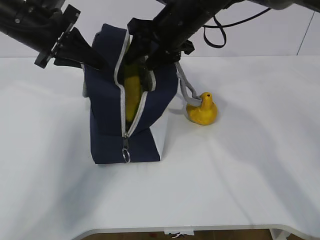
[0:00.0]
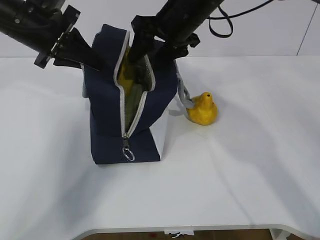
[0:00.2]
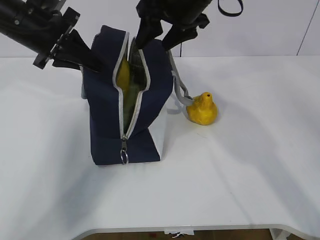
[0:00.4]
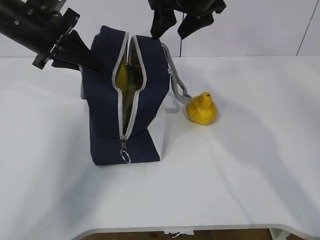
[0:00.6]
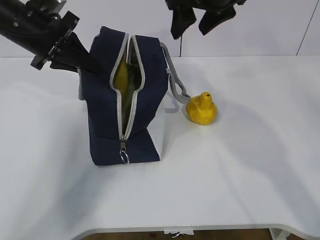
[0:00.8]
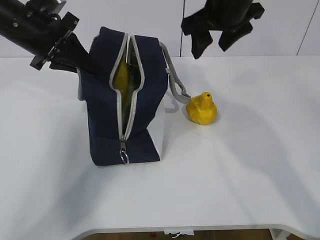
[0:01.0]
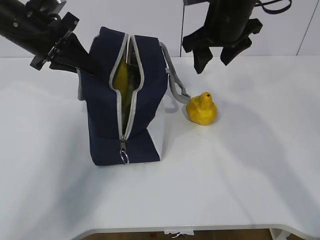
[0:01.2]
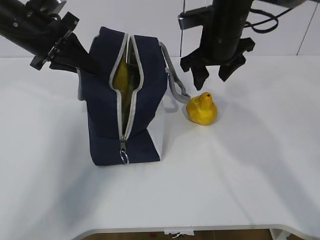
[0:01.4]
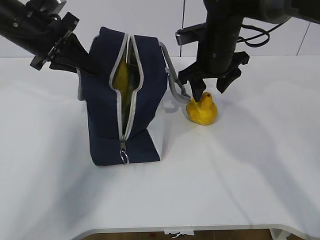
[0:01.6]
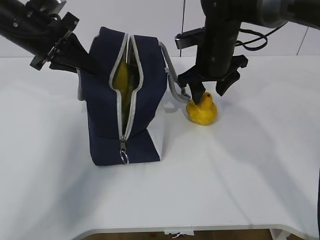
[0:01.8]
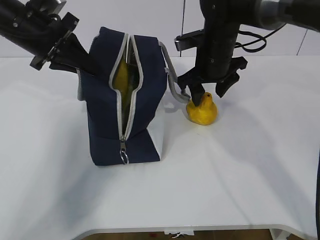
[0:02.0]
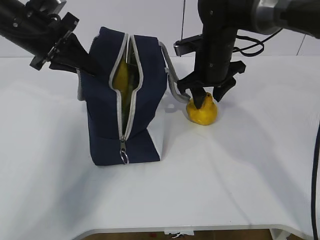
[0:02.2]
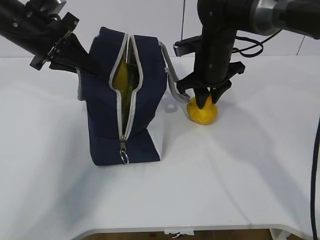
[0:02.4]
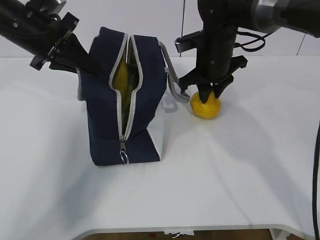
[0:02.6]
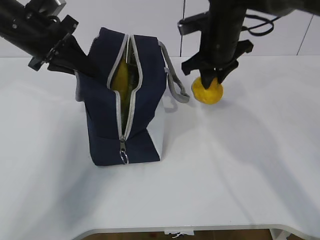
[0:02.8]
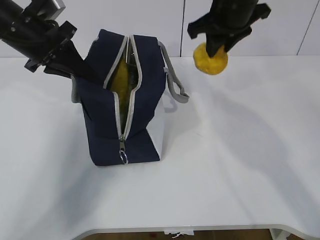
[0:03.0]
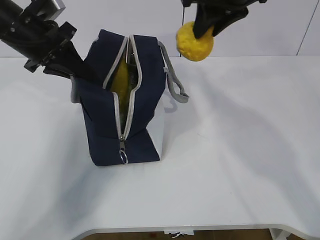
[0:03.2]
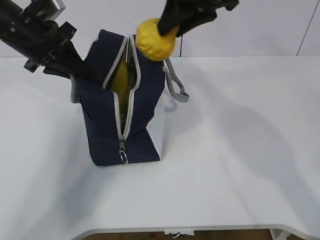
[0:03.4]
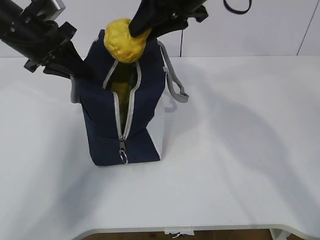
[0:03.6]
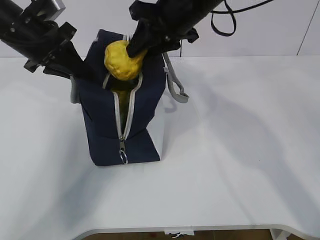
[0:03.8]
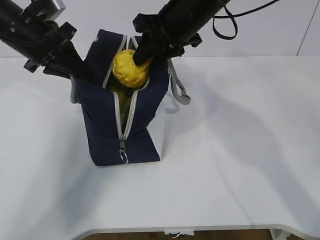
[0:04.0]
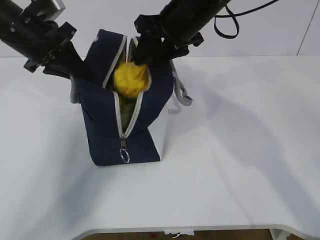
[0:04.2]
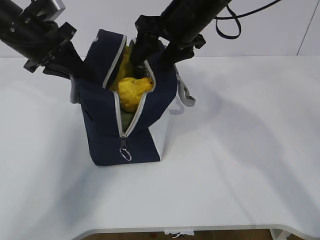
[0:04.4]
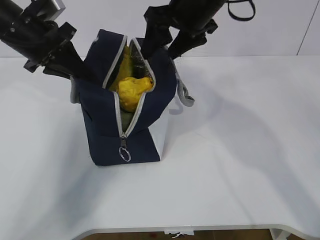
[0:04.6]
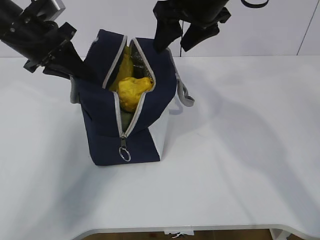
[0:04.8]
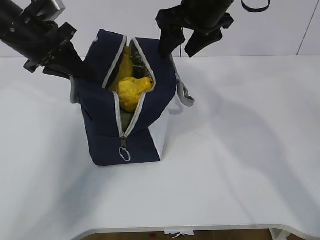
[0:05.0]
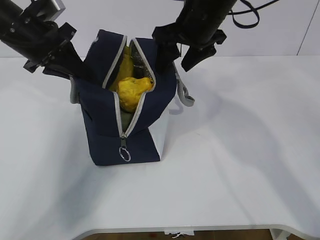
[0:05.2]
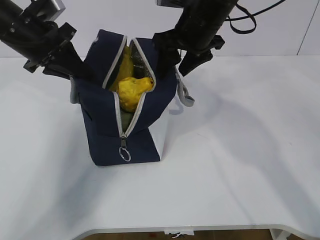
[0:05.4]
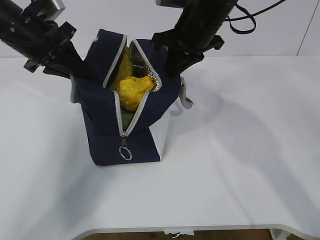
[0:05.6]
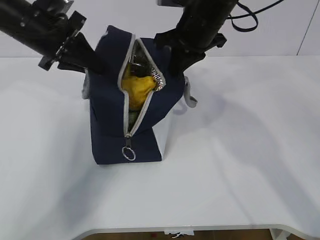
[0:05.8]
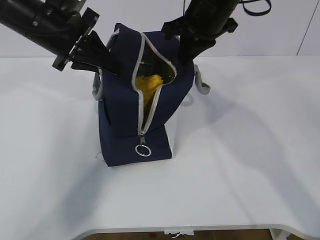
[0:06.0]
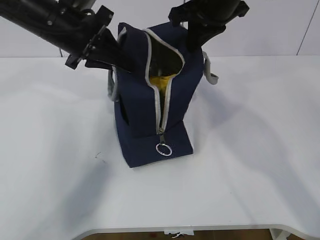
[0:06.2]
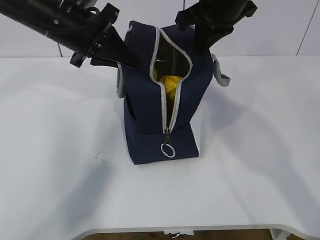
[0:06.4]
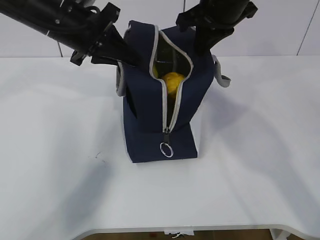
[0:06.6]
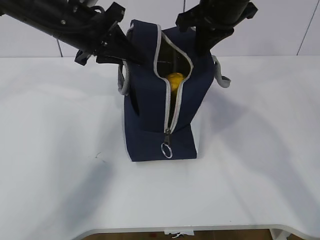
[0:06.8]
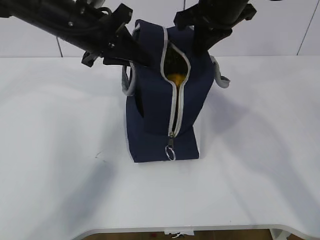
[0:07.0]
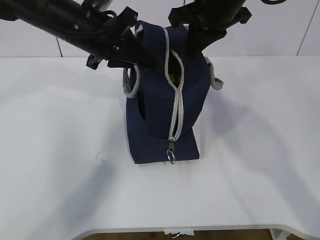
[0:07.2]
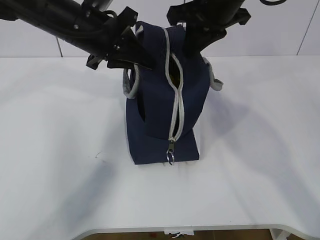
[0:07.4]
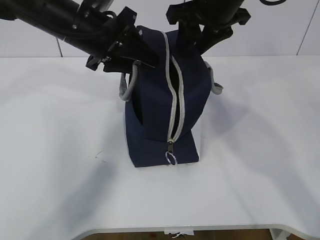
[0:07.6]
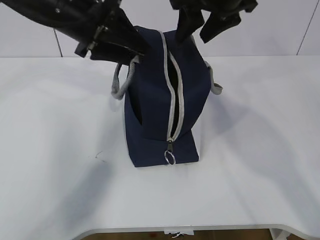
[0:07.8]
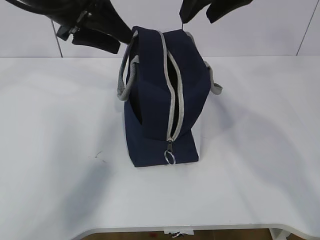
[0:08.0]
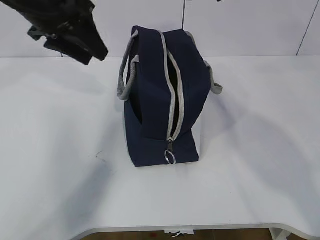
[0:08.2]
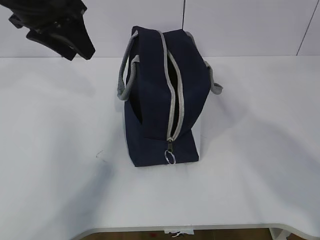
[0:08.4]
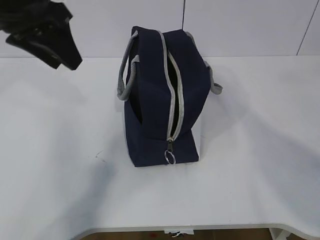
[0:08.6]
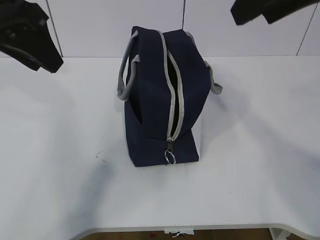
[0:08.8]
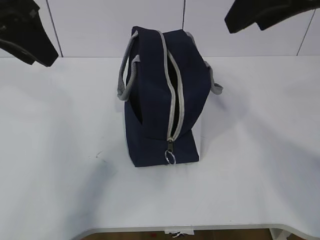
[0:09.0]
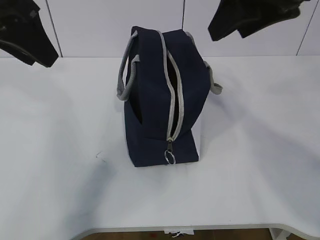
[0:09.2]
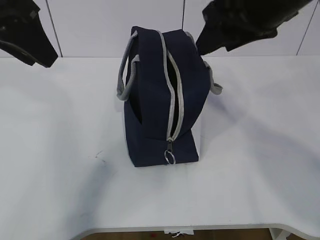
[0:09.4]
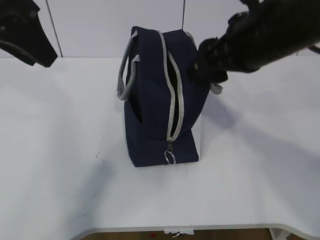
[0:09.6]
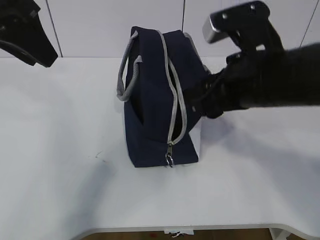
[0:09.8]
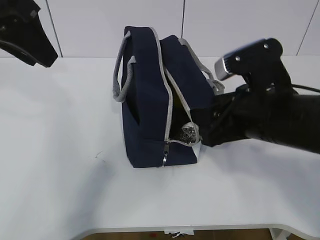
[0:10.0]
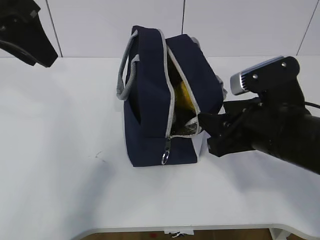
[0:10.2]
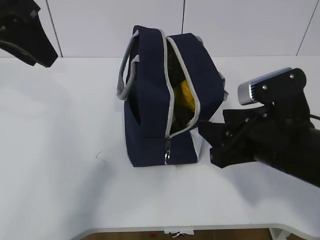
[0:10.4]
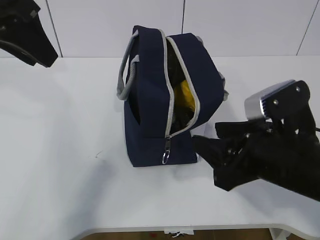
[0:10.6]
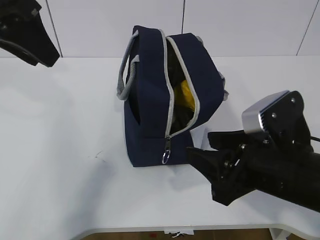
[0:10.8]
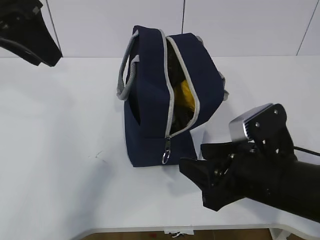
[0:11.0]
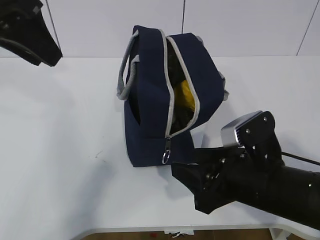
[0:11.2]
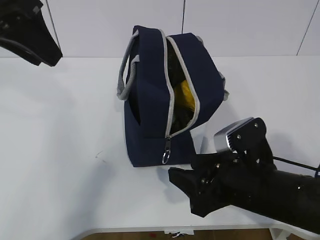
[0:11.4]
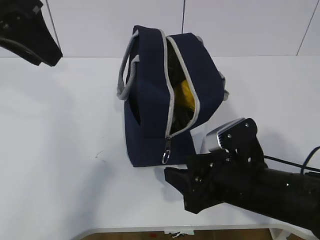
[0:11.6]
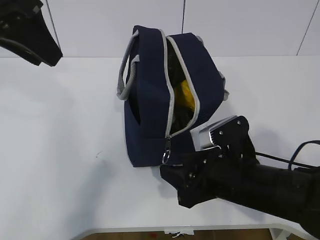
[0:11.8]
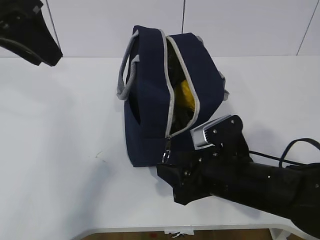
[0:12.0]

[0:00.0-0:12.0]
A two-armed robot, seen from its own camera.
Step, 0:00.4 to 0:02.2: Grasp the pear with the right gripper.
Step, 0:02.6 to 0:04.4: Place the pear into the package with the right gripper.
0:00.0 to 0:01.6: The right gripper shifts approximately 10 cm to the right and downward.
0:01.6 to 0:03.0: The right gripper moves upward, about 10 cm, and closes up.
0:03.0 to 0:04.4: The right gripper moves to the left, approximately 5 cm, and opens its fingers.
0:04.4 to 0:06.0: The right gripper closes up.
0:06.0 to 0:07.6: The right gripper opens up. The left gripper opens its fingers.
0:07.6 to 0:09.0: The left gripper moves upward, backward and to the left, about 15 cm, while the right gripper is displaced backward and upward by approximately 15 cm.
0:09.0 to 0:10.4: The right gripper is displaced downward by approximately 20 cm.
0:10.4 to 0:12.0: The right gripper is displaced downward by some 10 cm.

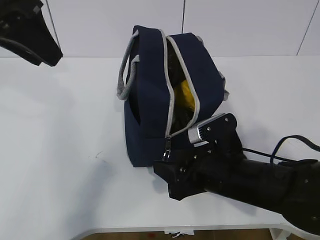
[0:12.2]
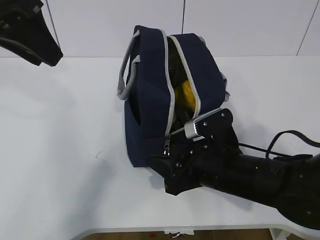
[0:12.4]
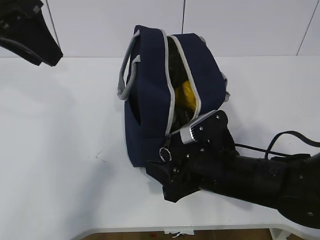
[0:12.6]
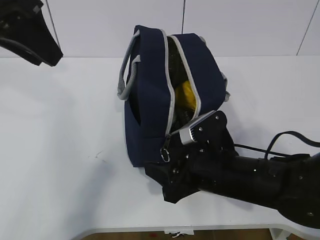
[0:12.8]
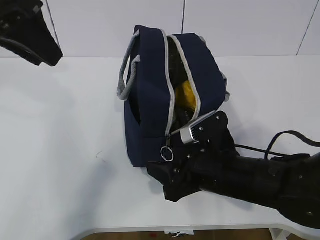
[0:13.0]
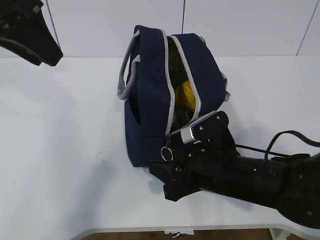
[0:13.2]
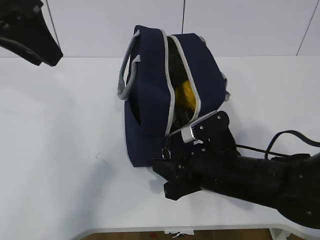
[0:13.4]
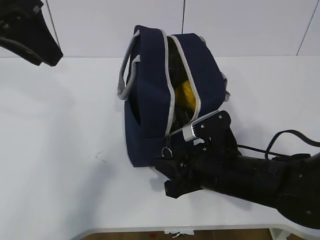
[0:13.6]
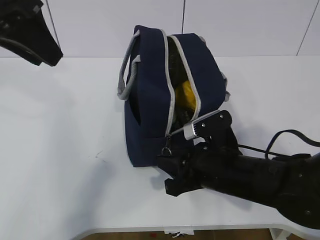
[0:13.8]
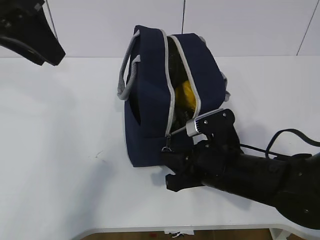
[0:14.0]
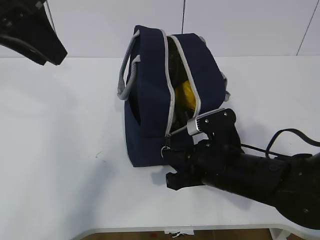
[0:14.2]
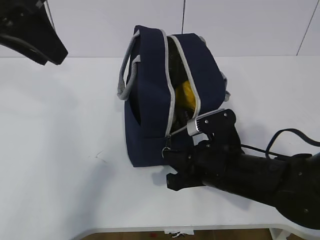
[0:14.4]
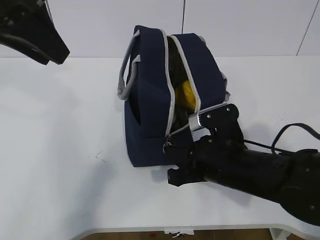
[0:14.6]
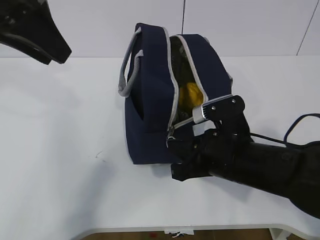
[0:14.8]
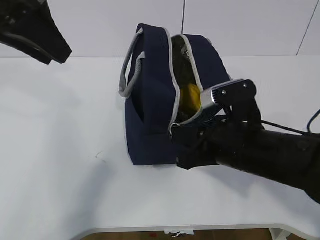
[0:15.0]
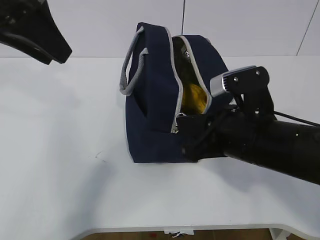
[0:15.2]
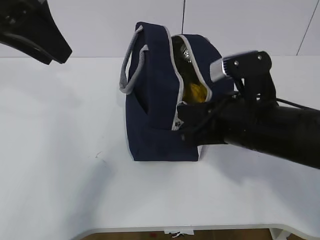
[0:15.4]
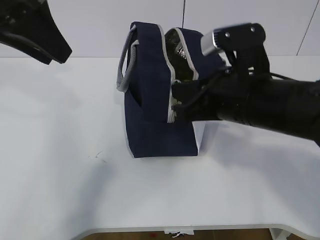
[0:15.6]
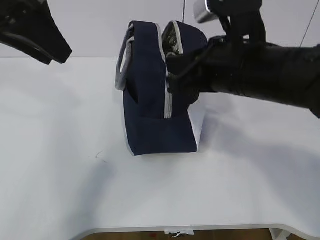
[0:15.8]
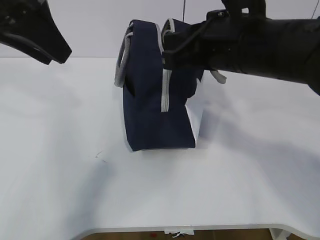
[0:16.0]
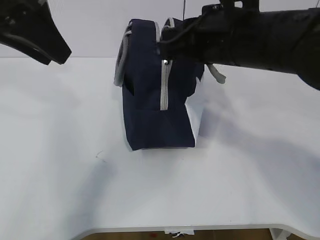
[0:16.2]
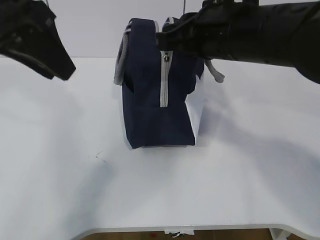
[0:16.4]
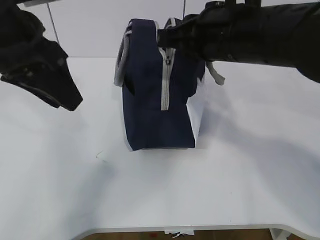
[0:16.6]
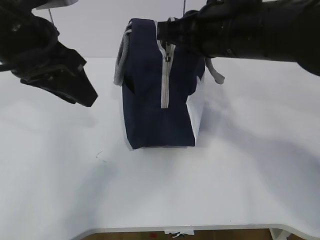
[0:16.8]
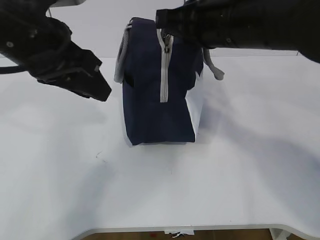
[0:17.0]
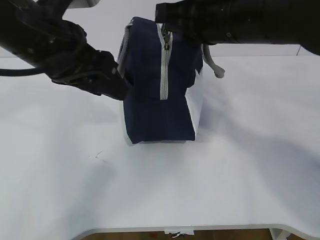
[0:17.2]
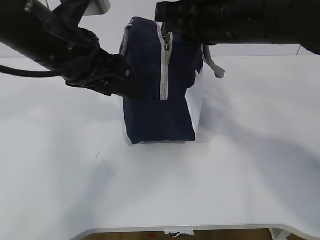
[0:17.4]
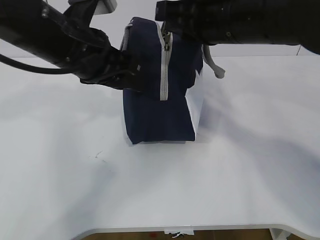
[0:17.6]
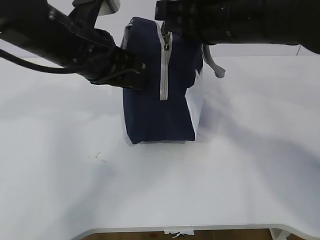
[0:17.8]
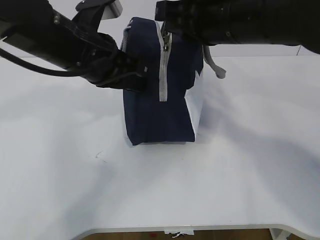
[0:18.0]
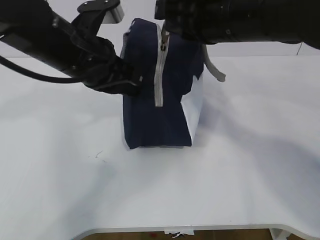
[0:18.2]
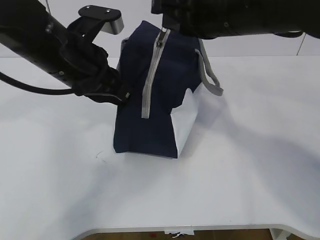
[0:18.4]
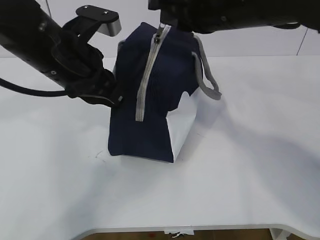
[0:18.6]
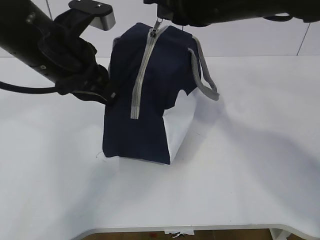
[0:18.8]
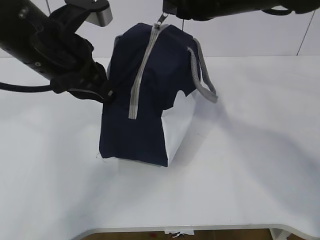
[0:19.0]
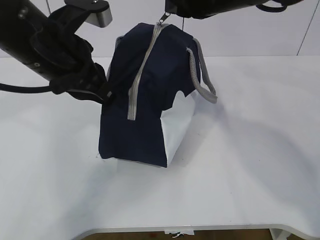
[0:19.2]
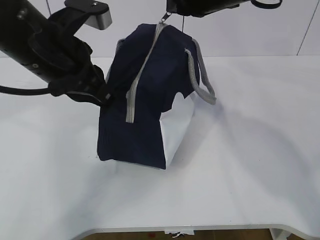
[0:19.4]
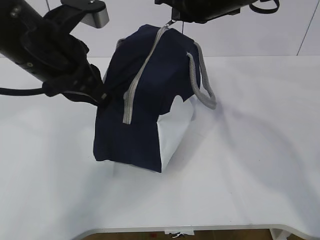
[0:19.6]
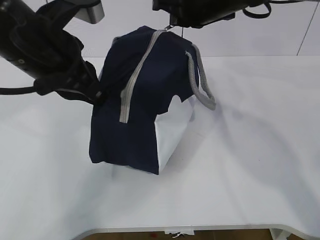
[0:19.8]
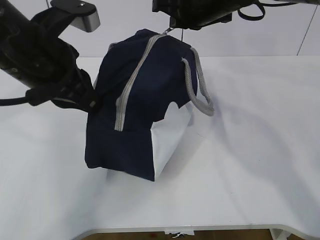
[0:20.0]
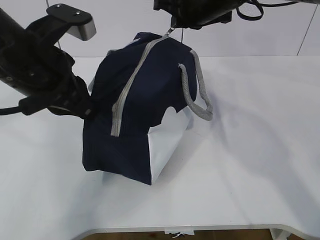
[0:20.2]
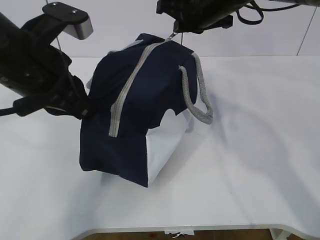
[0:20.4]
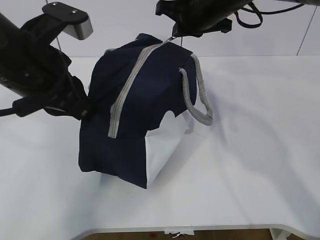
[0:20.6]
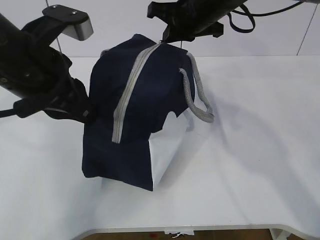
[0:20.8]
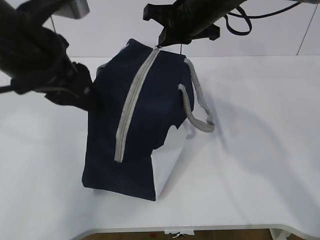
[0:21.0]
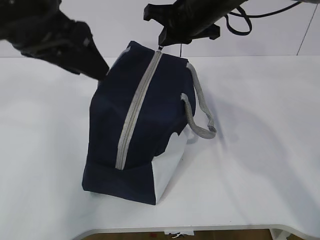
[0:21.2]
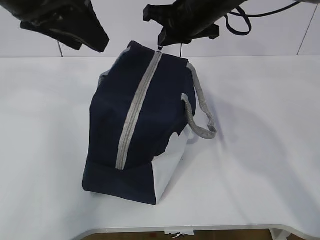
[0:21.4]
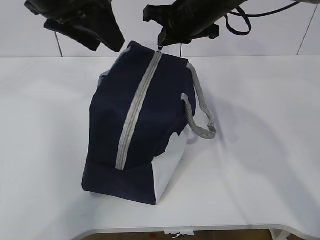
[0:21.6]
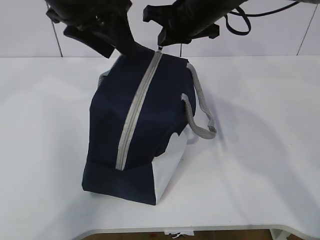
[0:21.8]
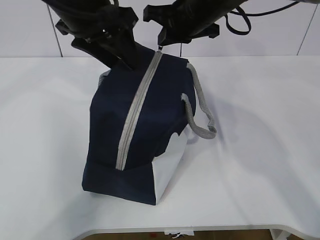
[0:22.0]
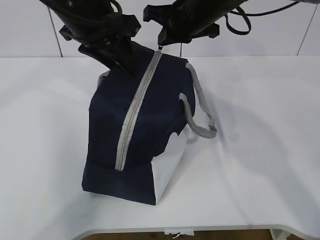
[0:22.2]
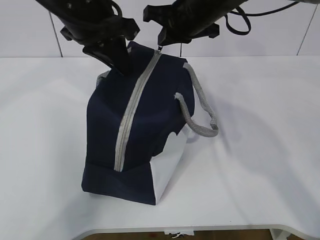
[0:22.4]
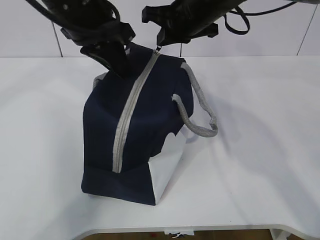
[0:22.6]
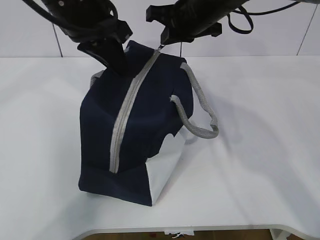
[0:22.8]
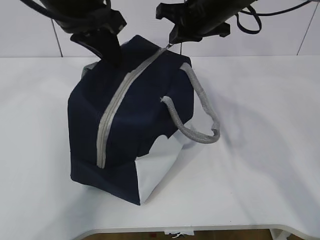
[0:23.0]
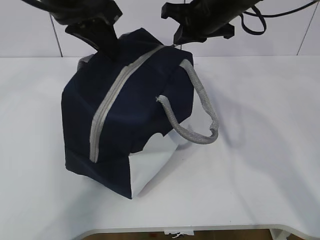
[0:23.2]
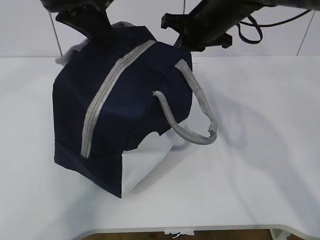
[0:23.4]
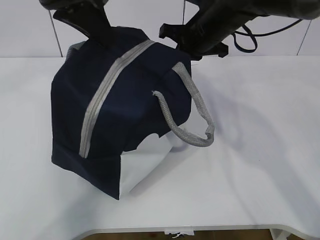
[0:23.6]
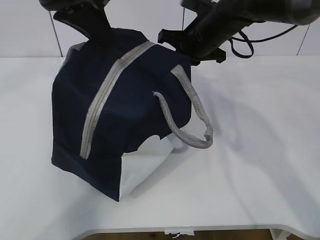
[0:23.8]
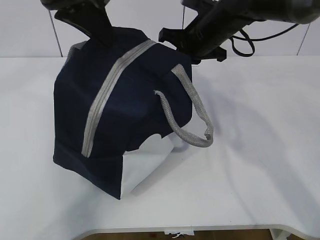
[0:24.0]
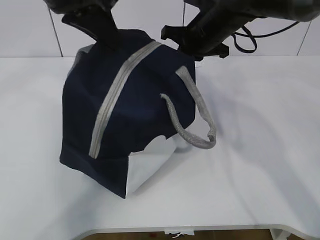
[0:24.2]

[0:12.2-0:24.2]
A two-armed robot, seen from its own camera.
0:12.2 to 0:13.8: The right gripper closes its fingers.
0:13.8 to 0:15.2: The right gripper moves upward, approximately 10 cm.
0:15.2 to 0:16.6: The right gripper moves upward and forward, roughly 10 cm.
0:16.6 to 0:18.2: The left gripper heads downward and to the right, covering about 10 cm, and closes.
0:18.2 to 0:19.8: The right gripper travels forward by approximately 10 cm, while the left gripper moves some 5 cm.
0:19.8 to 0:21.2: The left gripper is displaced upward by roughly 5 cm, and opens.
0:21.2 to 0:22.6: The left gripper goes roughly 10 cm forward, and closes its fingers.
0:22.6 to 0:24.2: The left gripper changes place by some 5 cm. Meanwhile the right gripper changes place by approximately 5 cm.
